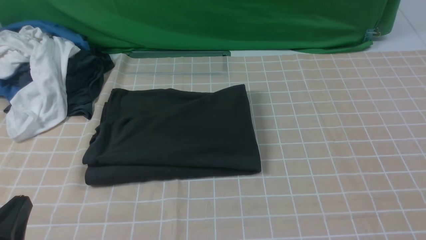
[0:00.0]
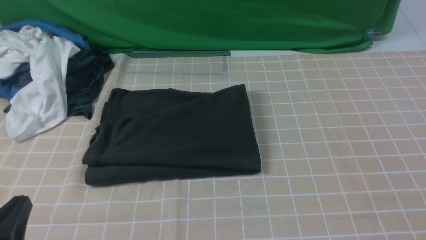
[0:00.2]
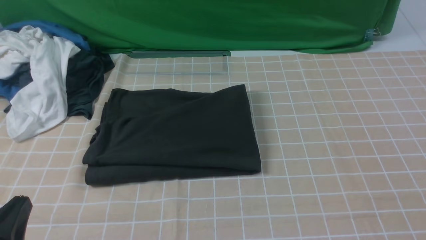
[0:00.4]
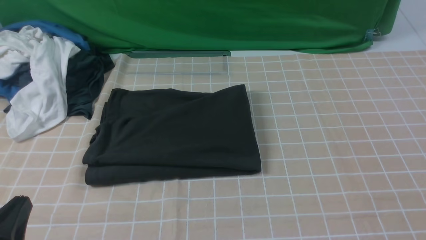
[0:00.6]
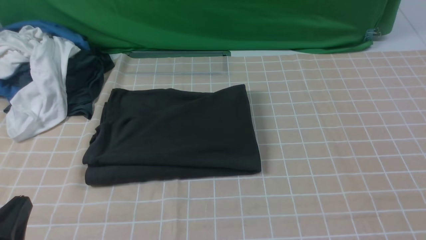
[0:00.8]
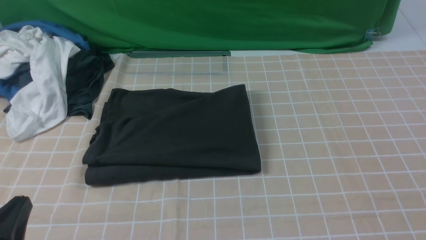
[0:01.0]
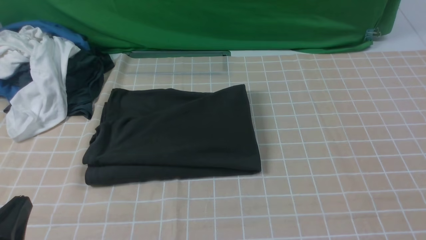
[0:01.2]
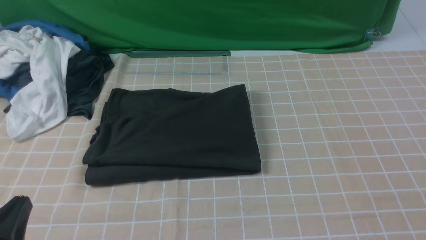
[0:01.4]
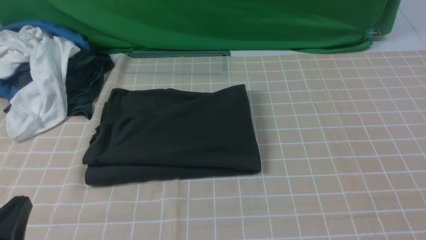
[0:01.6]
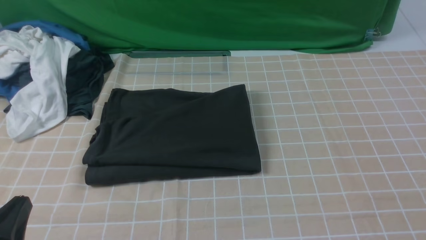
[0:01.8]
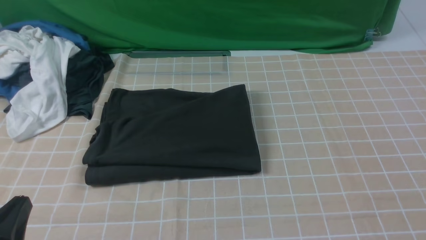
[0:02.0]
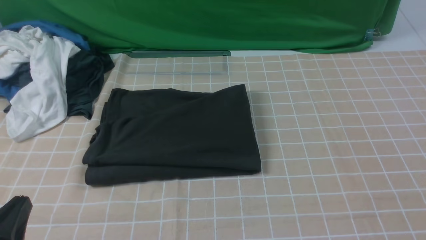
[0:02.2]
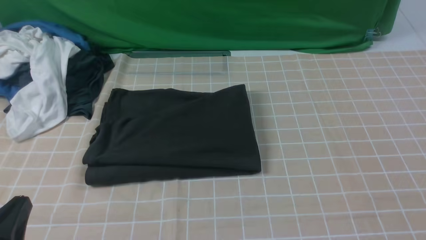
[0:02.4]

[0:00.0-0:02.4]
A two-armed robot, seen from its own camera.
0:01.2 to 0:02.4: Both grippers stay about where they are.
